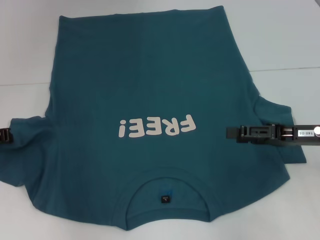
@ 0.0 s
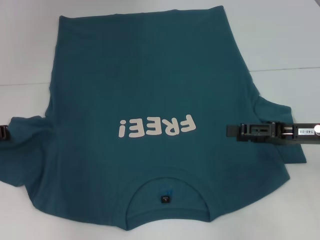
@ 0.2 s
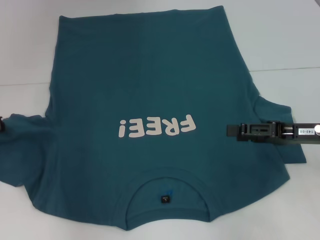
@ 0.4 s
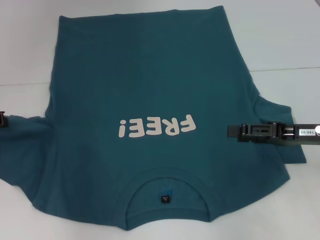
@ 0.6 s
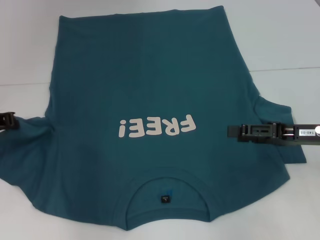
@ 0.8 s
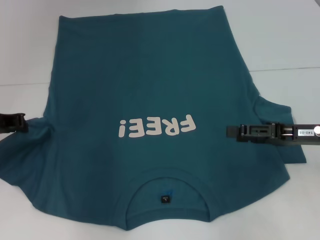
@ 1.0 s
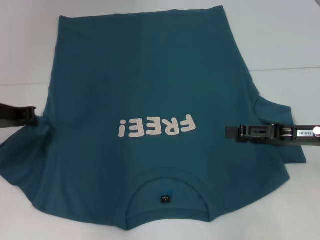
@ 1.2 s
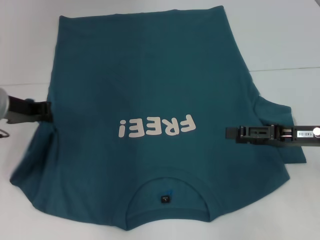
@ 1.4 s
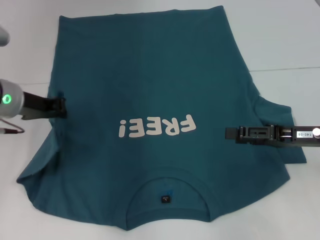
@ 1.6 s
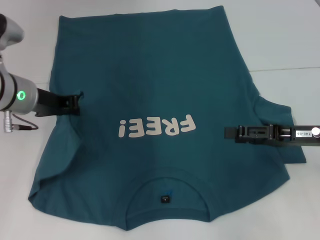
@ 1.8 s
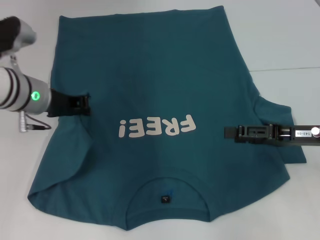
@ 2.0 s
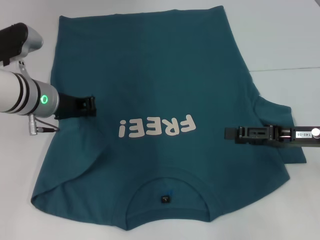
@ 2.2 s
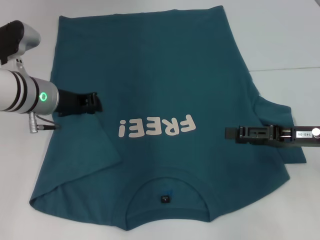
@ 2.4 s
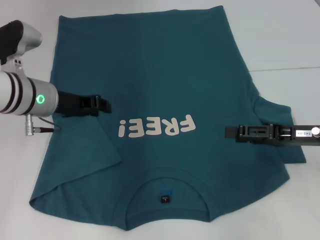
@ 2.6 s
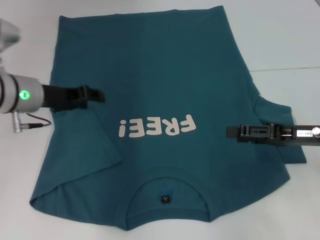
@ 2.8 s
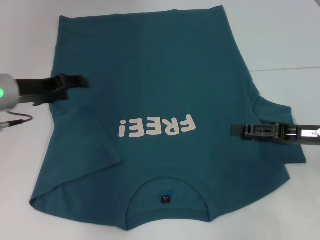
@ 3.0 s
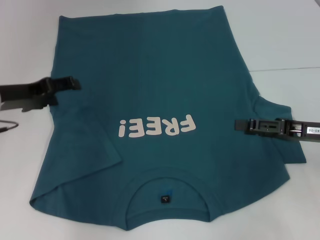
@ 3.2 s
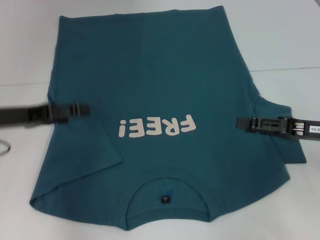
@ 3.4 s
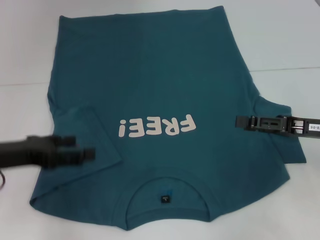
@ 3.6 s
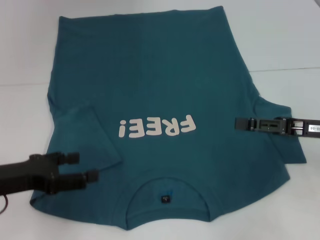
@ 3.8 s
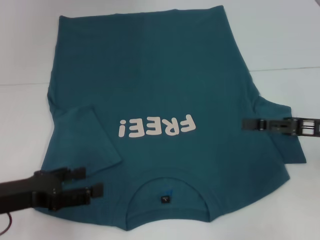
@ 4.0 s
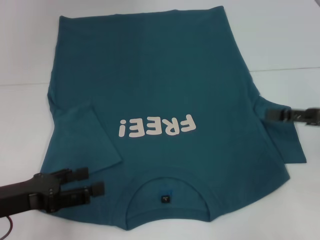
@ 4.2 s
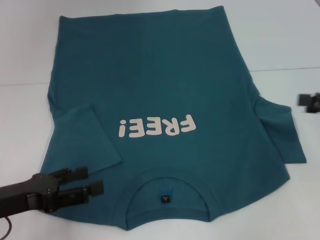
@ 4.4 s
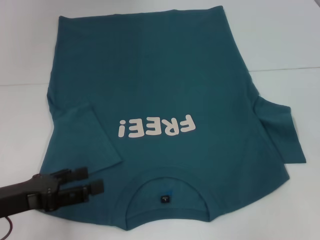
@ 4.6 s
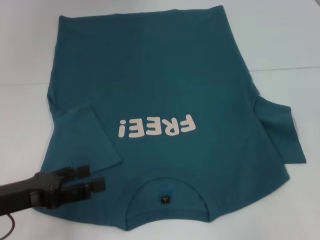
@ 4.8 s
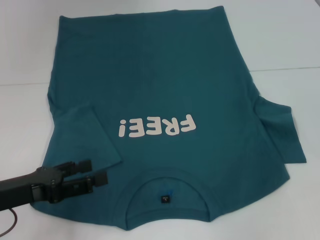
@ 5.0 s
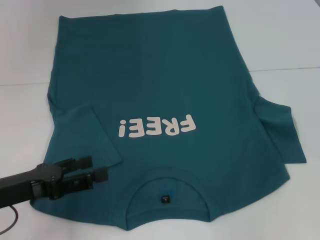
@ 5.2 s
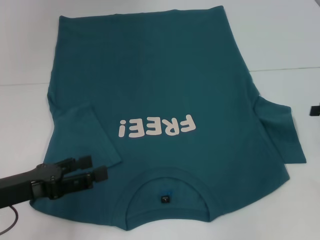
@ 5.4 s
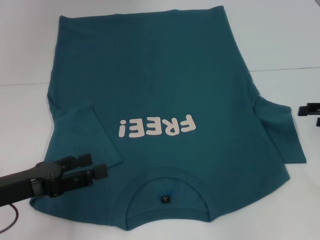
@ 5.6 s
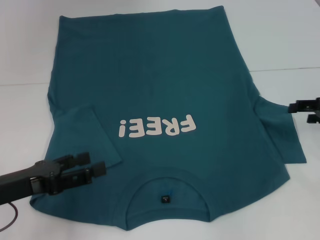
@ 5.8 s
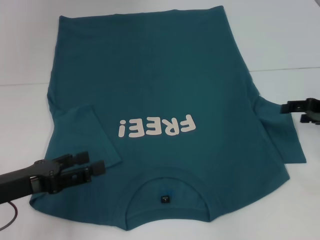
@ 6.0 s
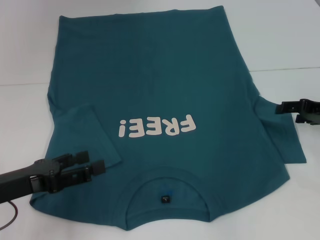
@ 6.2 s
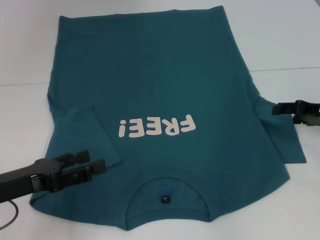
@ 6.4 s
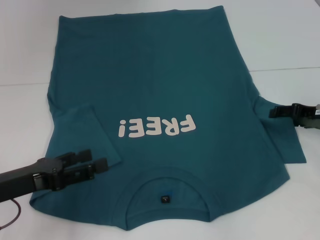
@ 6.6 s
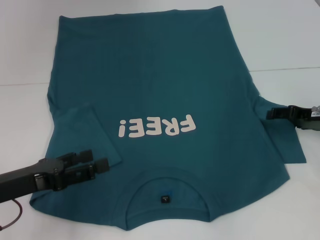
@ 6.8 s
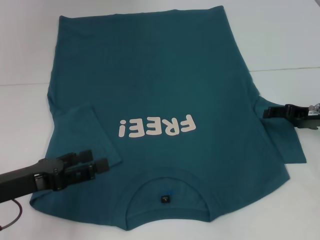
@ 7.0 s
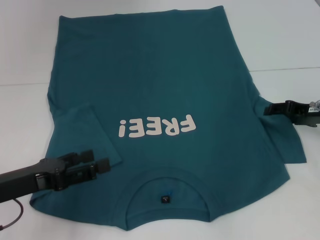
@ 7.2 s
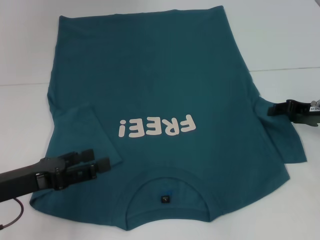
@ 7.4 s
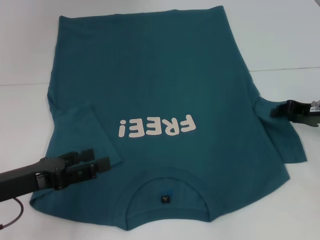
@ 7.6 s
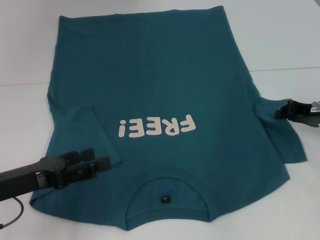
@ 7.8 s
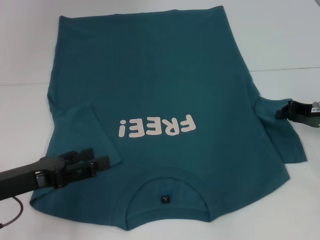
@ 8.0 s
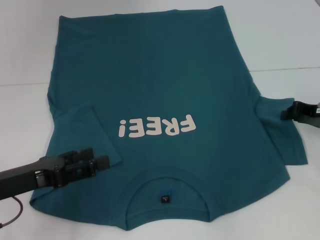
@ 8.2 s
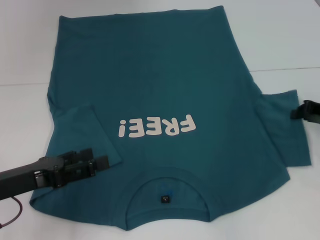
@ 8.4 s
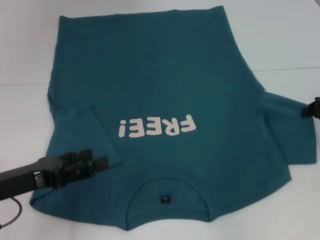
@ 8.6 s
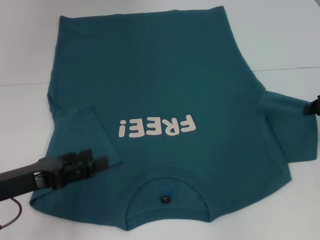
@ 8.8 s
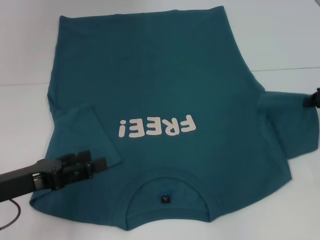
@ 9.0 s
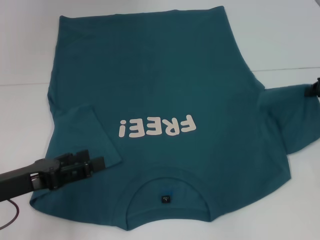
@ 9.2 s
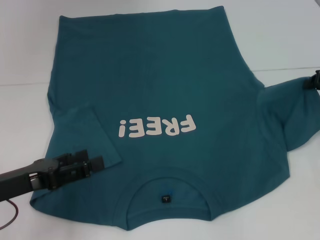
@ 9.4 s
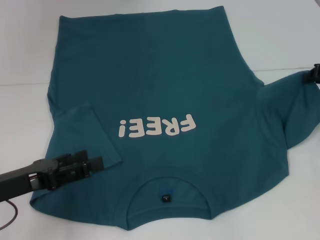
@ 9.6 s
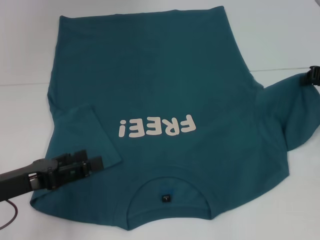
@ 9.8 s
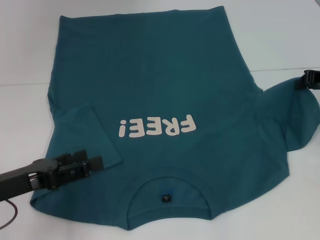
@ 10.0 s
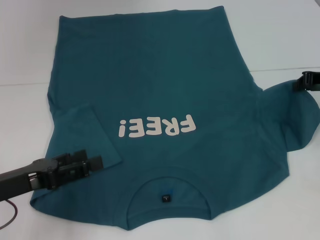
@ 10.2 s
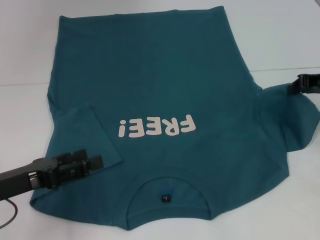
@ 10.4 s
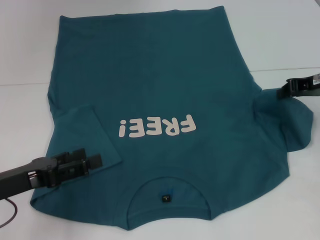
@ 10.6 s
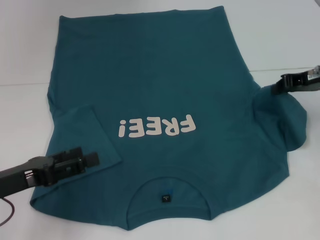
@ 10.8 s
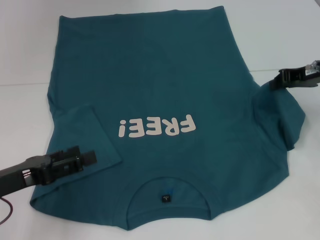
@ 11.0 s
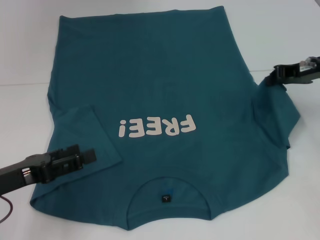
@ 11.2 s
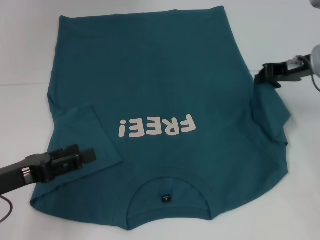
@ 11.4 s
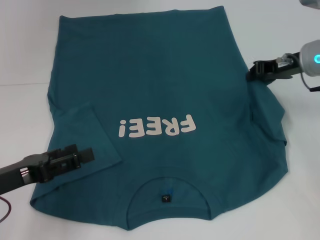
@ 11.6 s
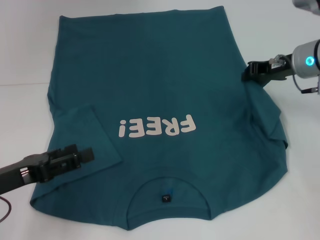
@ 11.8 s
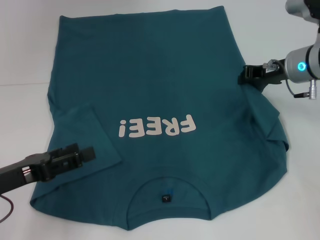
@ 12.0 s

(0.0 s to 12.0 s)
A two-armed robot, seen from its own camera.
Step, 0.0 s - 3.2 s: Fold the bottom left sleeve with your left hand.
0.0 s - 1.6 s: The left gripper goes roughly 10 cm to the right and upward.
1.6 s - 3.0 s: The left gripper opens up.
3.0 s - 4.4 s: The right gripper heads to the right and upward, covering some 10 cm, while the left gripper heads backward, covering roughly 15 cm.
4.4 s - 6.0 s: The right gripper moves forward and downward, approximately 10 cm.
6.0 s - 7.6 s: The right gripper closes up.
7.6 s - 9.0 s: The right gripper closes its fingers.
9.0 s - 10.4 s: The right gripper shifts by some 5 cm.
10.4 s - 12.0 s: The right gripper travels to the left by roughly 10 cm.

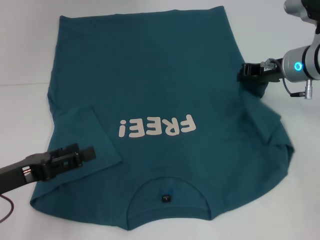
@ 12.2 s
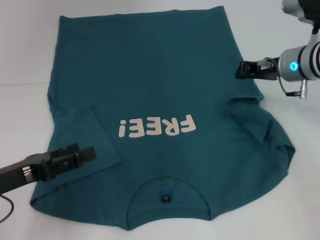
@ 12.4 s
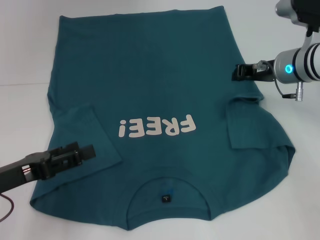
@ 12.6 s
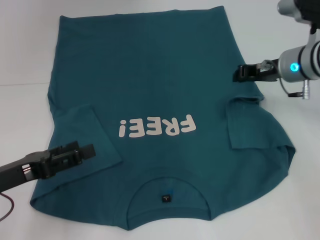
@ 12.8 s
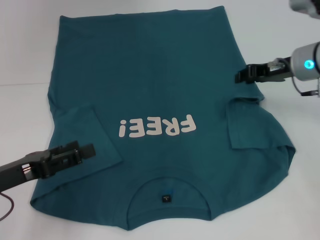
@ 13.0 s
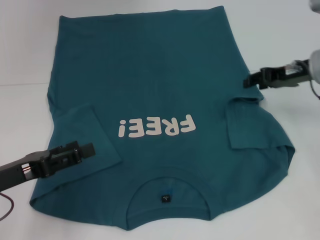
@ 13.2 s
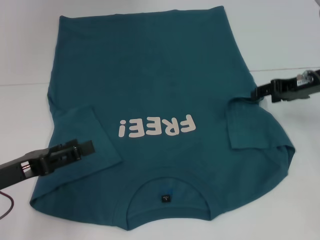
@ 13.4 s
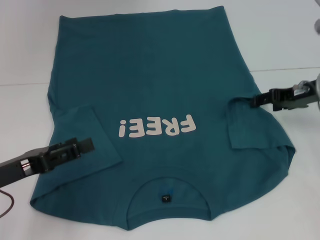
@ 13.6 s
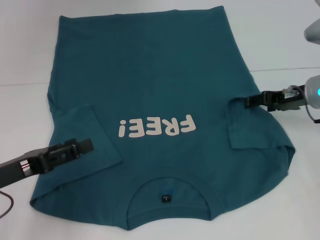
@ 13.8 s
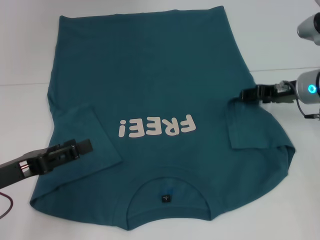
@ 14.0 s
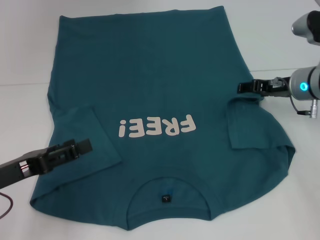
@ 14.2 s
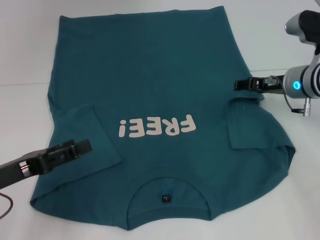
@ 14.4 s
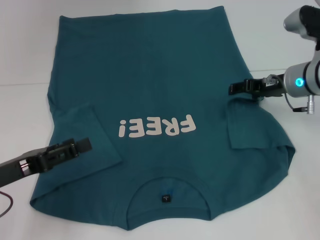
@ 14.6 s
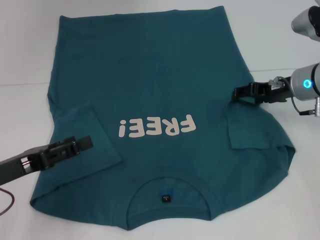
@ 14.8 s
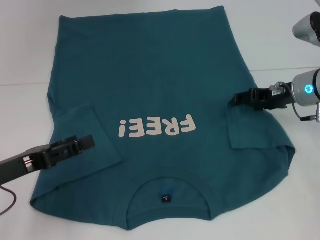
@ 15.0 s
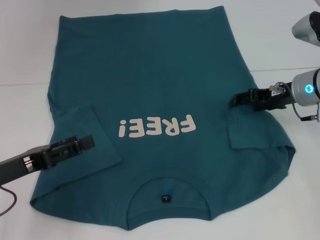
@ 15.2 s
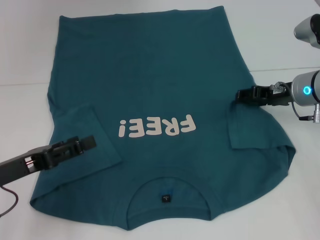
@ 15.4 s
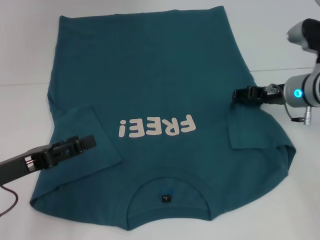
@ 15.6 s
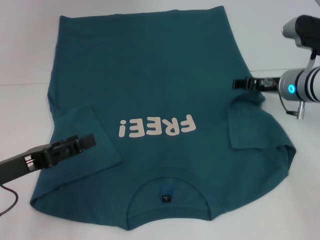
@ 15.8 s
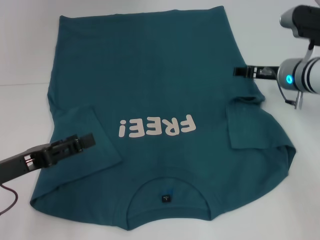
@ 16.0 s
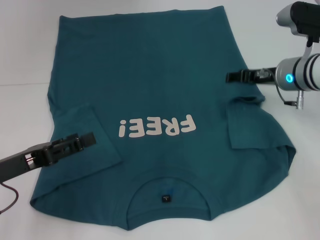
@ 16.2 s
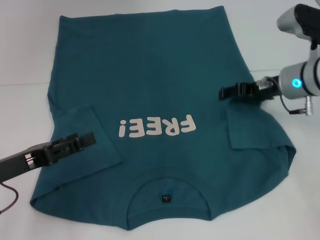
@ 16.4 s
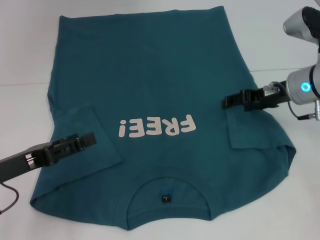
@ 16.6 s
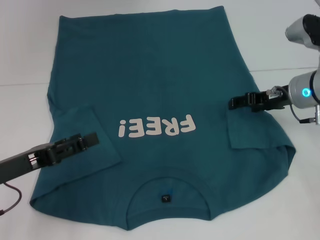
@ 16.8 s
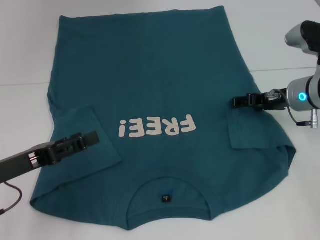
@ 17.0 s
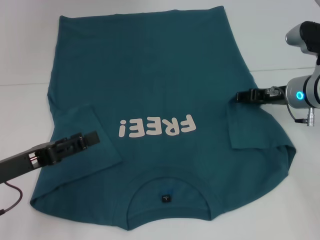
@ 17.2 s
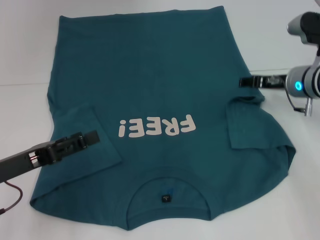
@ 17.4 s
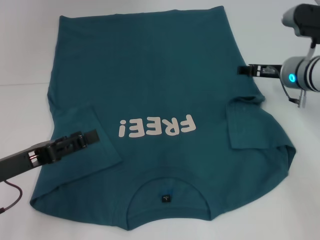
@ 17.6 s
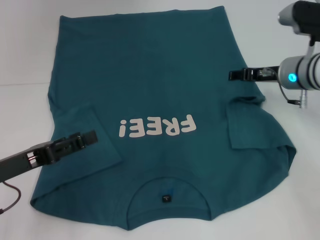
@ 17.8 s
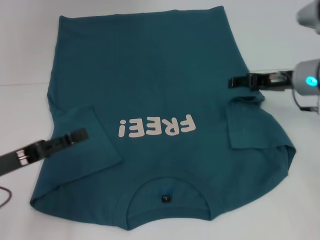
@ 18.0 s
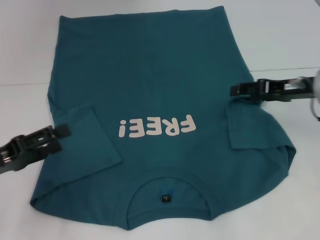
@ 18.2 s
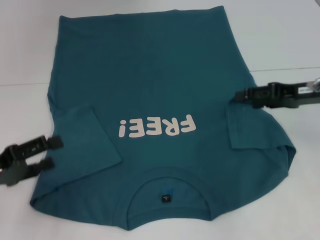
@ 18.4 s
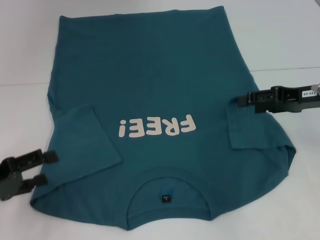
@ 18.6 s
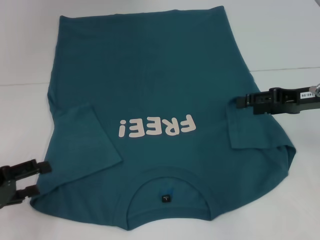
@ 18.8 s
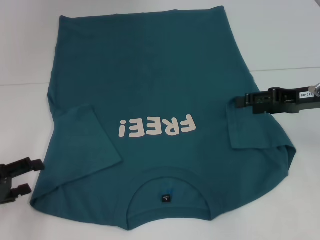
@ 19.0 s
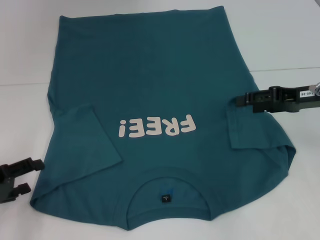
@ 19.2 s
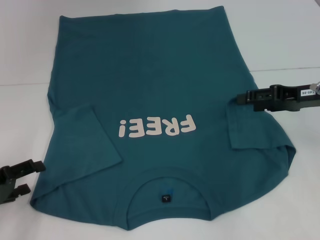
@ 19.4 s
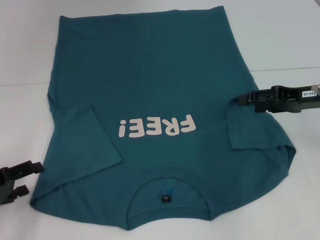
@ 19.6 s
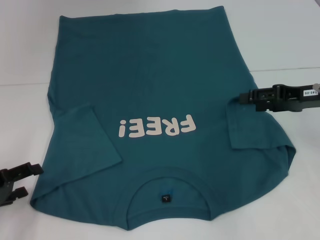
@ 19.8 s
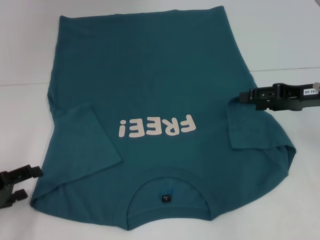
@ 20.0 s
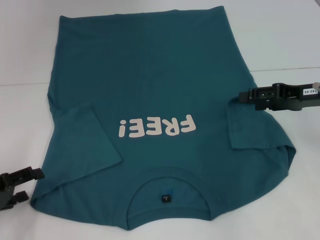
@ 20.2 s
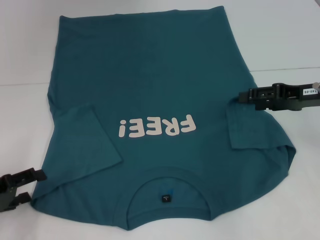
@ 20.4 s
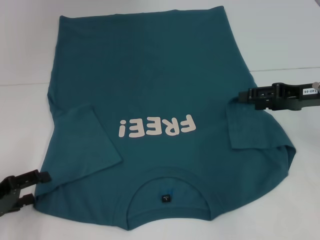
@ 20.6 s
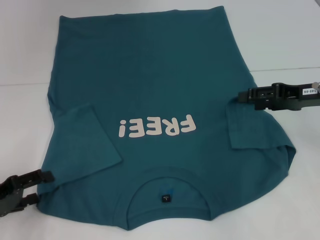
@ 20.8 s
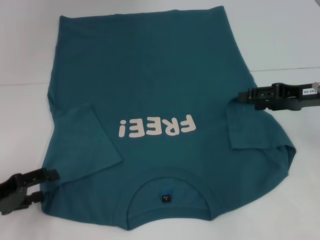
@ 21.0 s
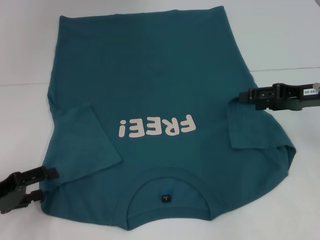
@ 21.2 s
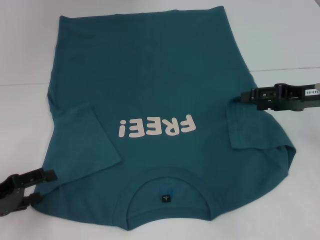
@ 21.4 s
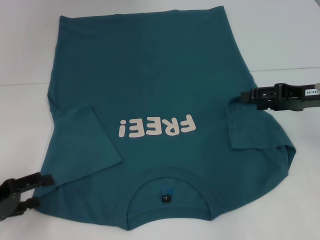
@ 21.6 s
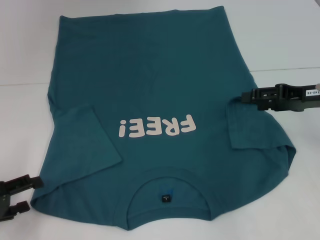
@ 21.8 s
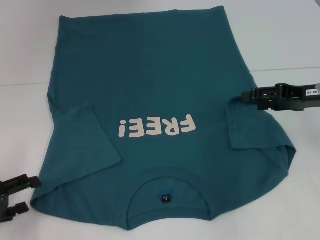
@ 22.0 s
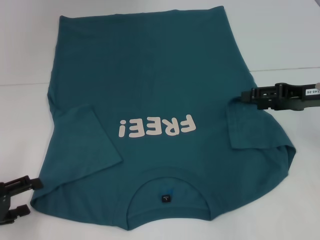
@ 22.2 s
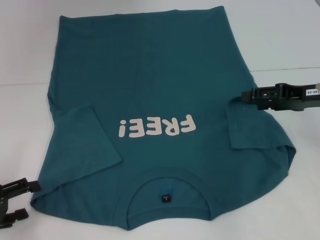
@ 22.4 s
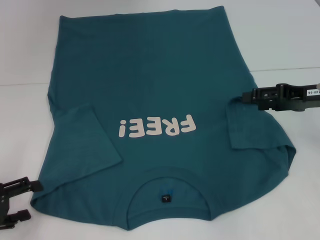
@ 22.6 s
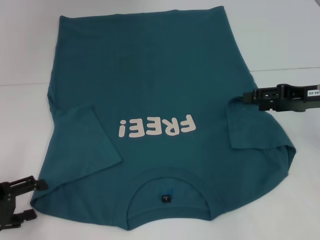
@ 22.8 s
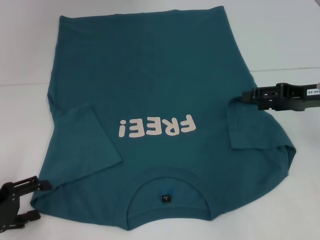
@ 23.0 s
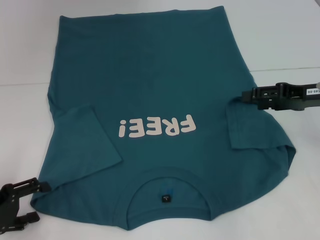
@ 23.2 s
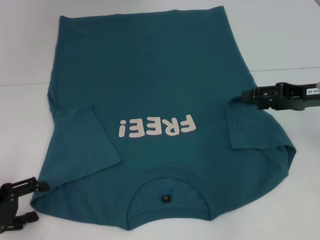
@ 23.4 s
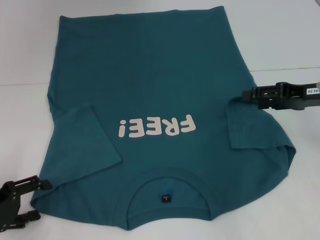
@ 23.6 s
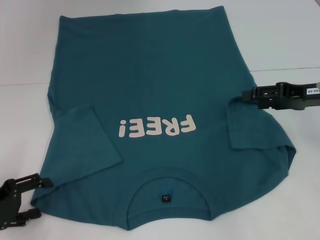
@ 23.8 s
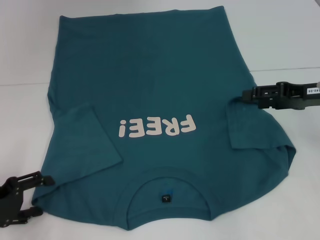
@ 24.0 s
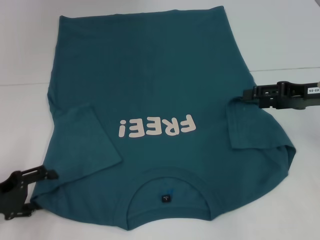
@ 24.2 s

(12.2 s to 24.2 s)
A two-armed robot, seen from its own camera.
Step, 12.2 s - 18.4 s: Fold the bottom right sleeve to the right.
12.2 s - 13.8 s: The right gripper ends up some 5 cm from where it was, and opens up.
13.8 s - 15.2 s: The grippers stay close to where they were, moving slightly.
18.2 s - 19.8 s: The left gripper ends up approximately 5 cm from where it was.
19.8 s - 24.2 s: There are only small adjustments of the grippers.
